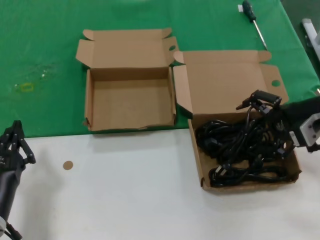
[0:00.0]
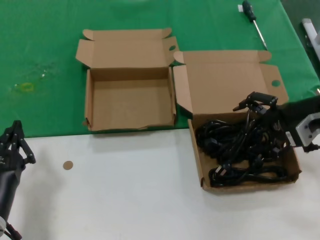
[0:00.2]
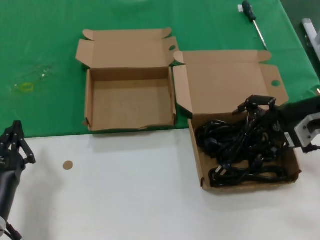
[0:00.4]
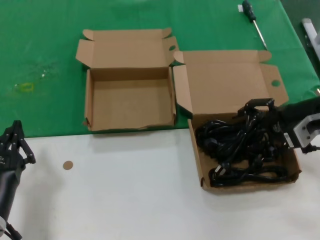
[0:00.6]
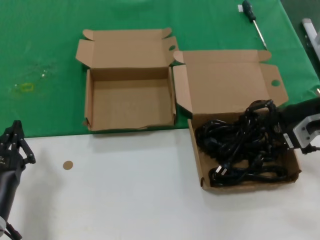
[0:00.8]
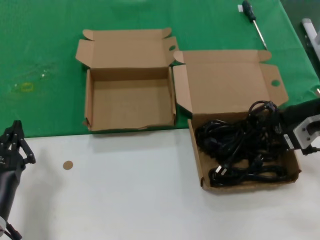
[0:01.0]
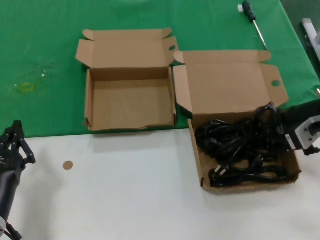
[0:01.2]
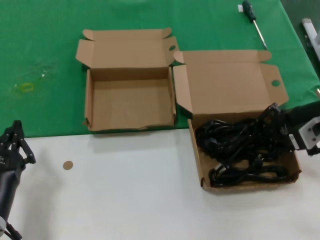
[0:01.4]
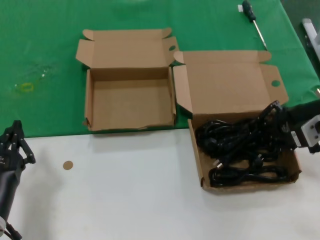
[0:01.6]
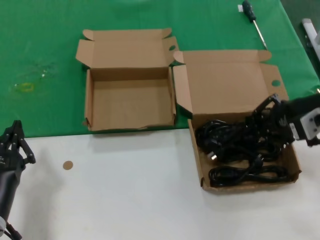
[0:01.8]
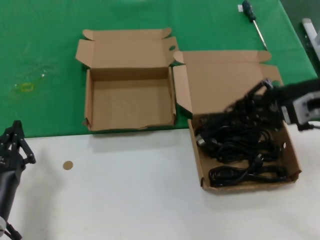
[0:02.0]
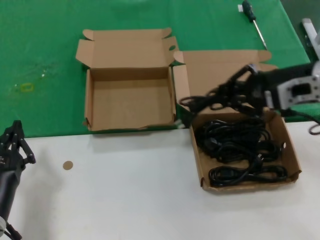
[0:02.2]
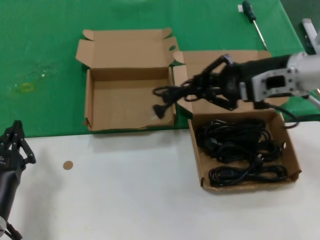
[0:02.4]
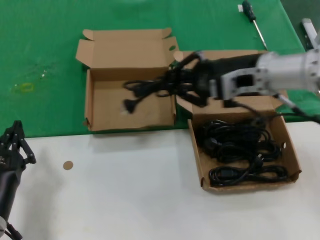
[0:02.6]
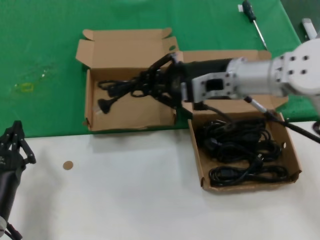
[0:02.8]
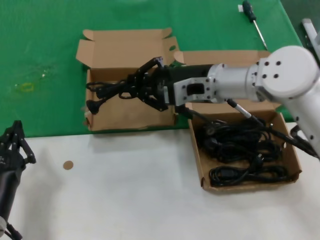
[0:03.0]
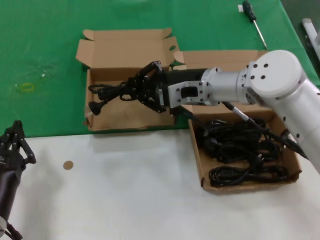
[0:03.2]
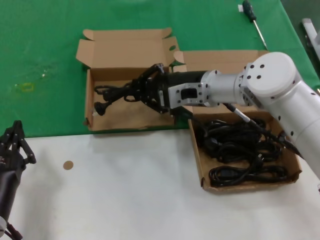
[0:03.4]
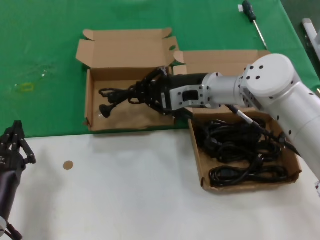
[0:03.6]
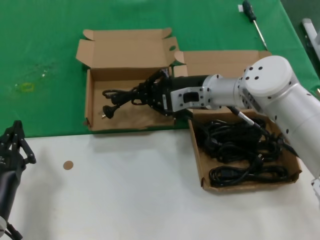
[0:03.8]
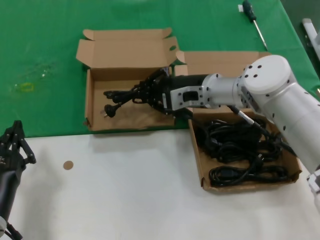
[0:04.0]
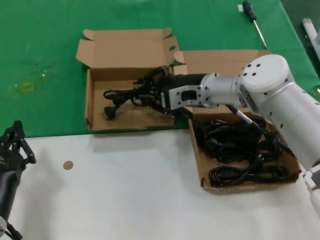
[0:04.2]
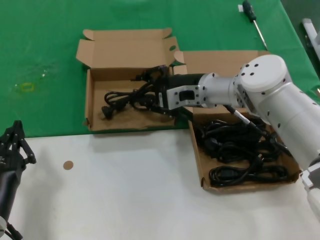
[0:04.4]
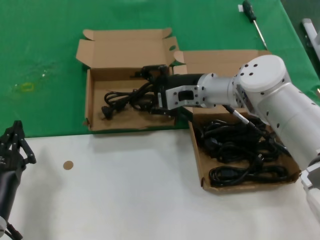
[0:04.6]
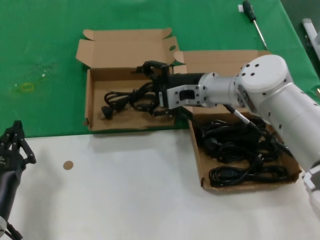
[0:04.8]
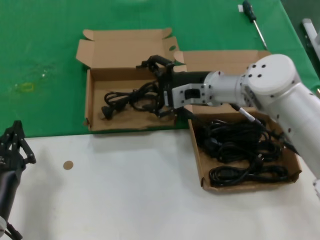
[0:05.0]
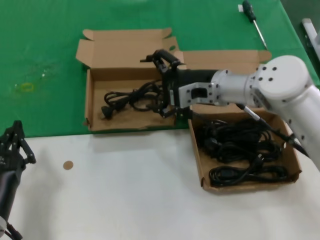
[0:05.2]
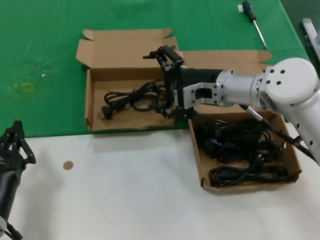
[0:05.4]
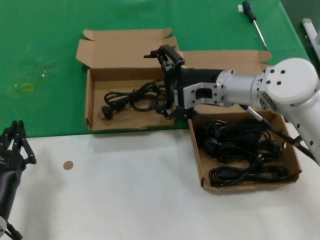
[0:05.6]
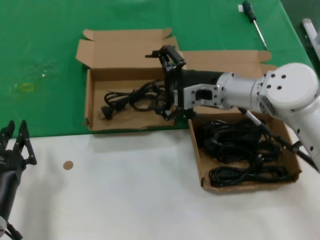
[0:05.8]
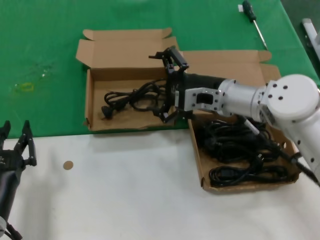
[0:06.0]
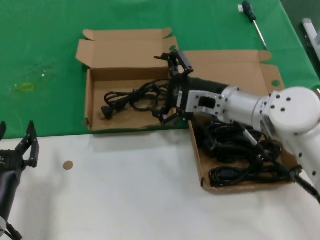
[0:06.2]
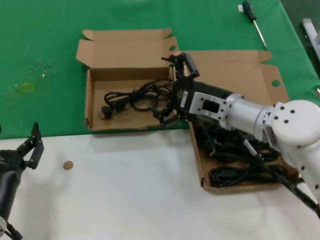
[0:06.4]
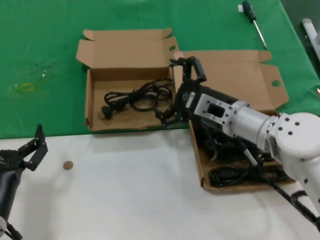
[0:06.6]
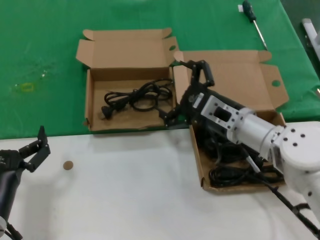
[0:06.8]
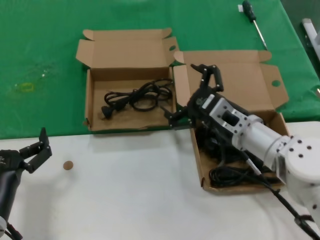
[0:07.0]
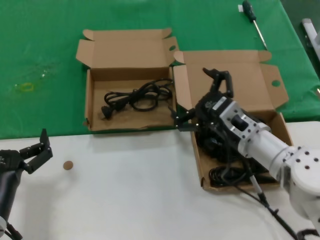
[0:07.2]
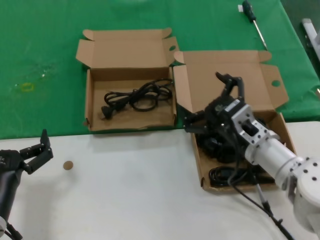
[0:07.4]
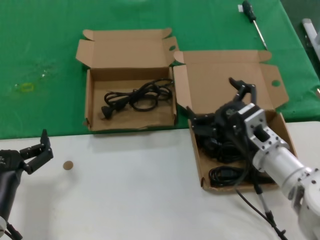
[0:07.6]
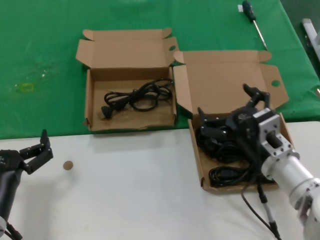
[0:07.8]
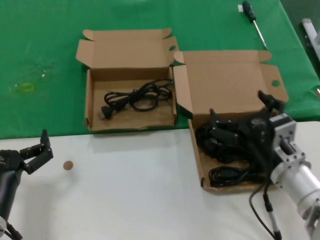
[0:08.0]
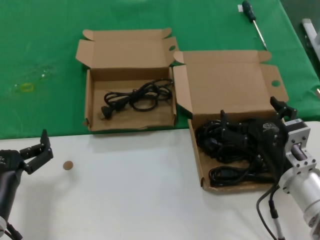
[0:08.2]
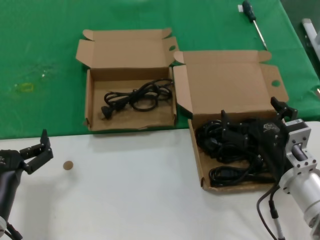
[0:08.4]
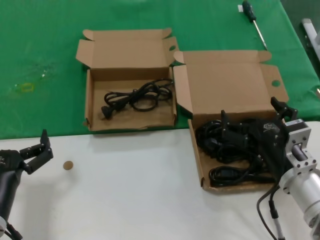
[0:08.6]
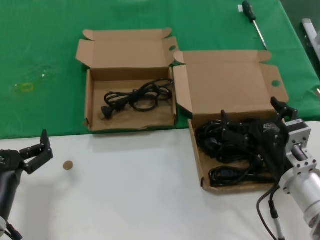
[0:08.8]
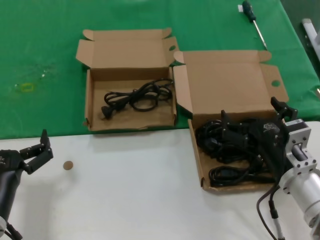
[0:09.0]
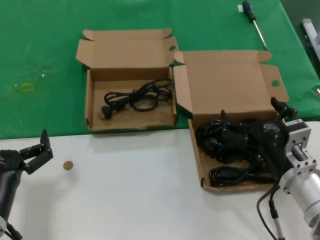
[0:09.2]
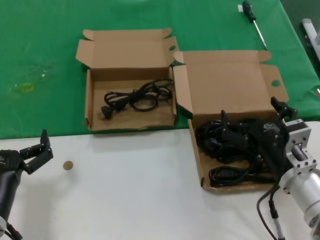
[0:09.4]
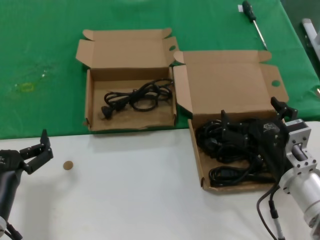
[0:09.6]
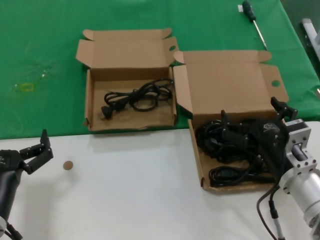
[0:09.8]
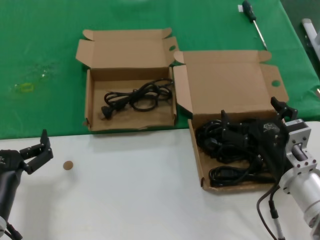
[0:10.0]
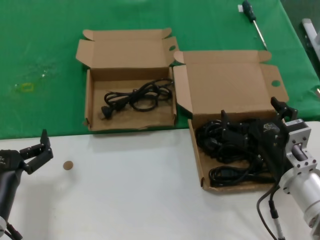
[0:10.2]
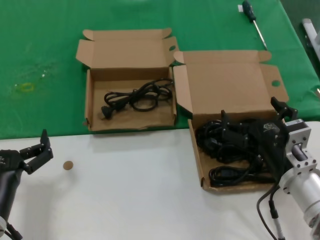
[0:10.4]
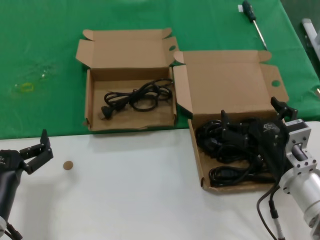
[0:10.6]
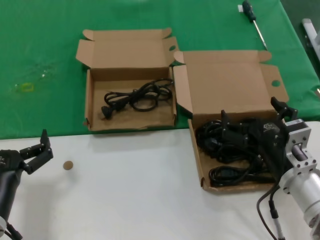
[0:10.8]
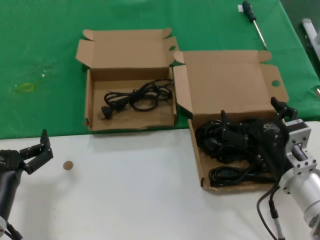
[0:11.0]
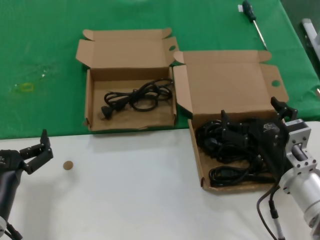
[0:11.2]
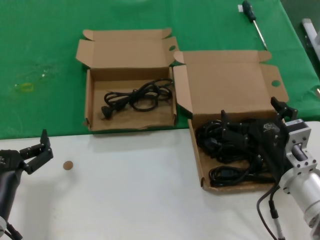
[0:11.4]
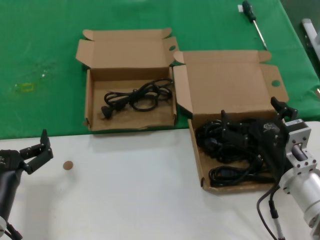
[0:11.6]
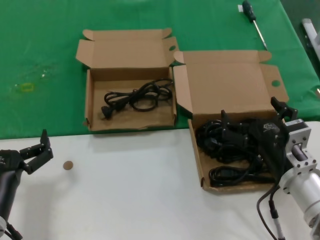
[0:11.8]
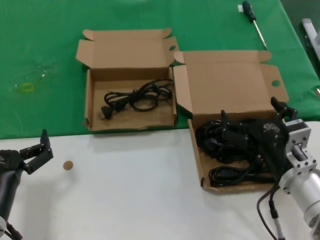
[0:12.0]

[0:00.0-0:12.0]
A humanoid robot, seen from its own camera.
Task of the whole recording: take the parts from the box containing them and put them into an empty box.
Step, 0:01.4 to 0:04.8: Place the data cable in the another box.
0:00.0 to 0:01.6: The two hands keep their place.
0:01.6 to 0:03.0: The right hand is displaced to the left by about 20 cm.
0:03.0 to 0:04.4: The right hand heads downward and forward, covering about 10 cm.
0:04.4 to 0:06.0: The right hand goes approximately 5 cm backward.
0:06.0 to 0:07.6: The right hand moves backward and downward, some 15 cm.
0:07.6 to 0:09.0: The right hand travels backward by some 5 cm.
0:09.0 to 0:12.0: The two hands keep their place.

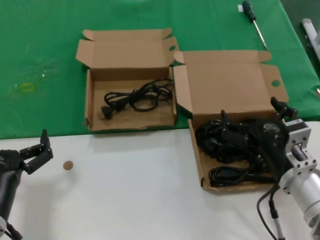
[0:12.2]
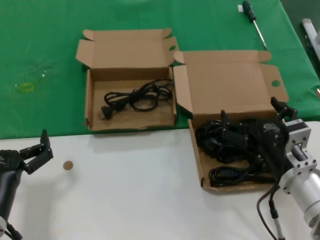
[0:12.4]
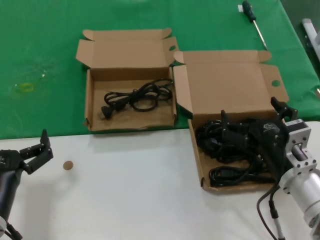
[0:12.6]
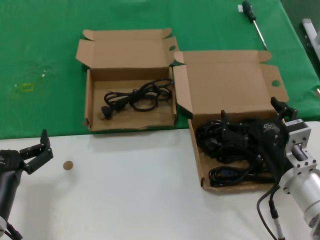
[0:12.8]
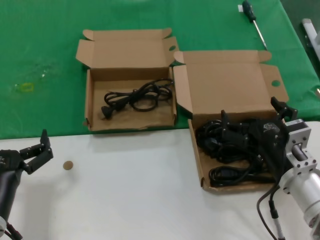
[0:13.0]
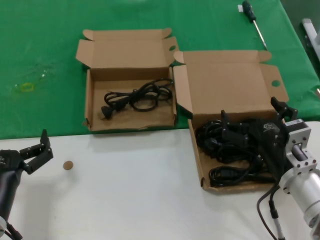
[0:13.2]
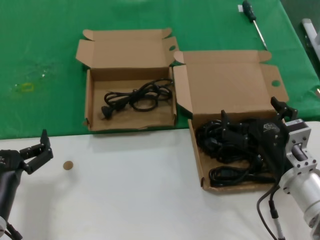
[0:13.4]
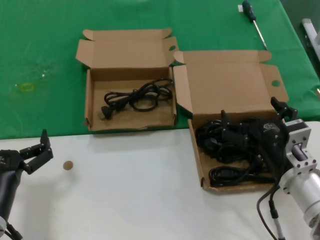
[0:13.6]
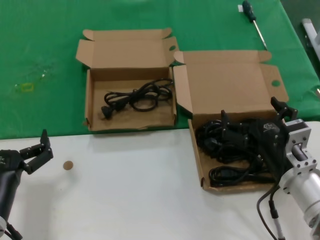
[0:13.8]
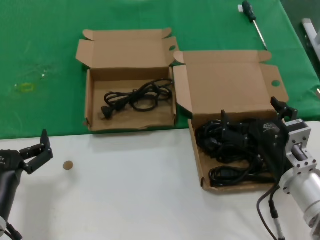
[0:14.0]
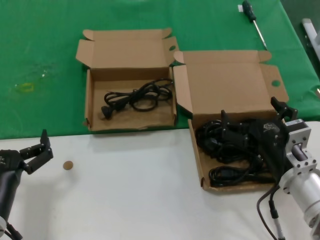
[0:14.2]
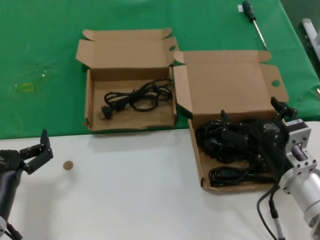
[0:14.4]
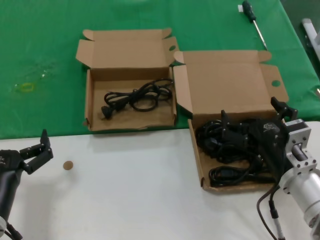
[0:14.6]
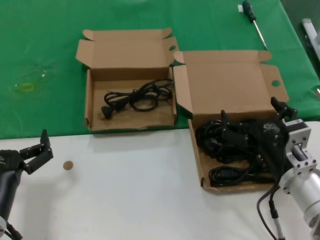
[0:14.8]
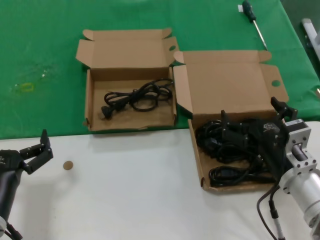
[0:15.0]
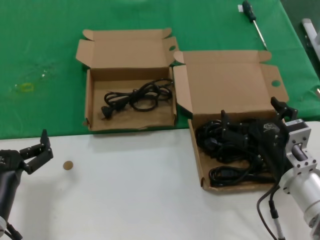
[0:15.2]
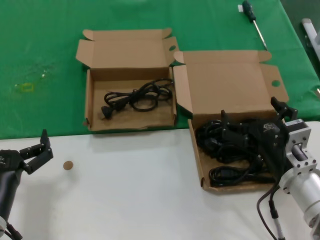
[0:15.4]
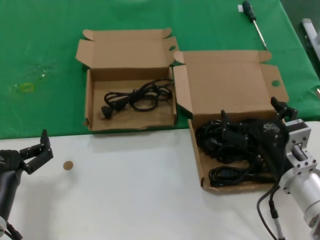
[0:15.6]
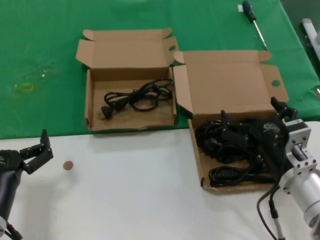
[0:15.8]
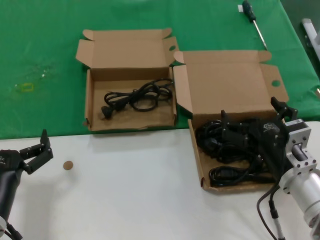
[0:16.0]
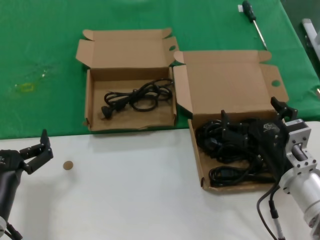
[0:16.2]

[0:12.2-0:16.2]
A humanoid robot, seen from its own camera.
Task of the whole recording: take the parts from the box containing them and put them into an empty box.
0:12.2 to 0:16.2: Both hands stay about where they are.
